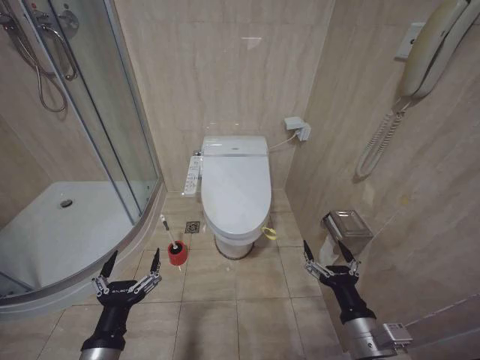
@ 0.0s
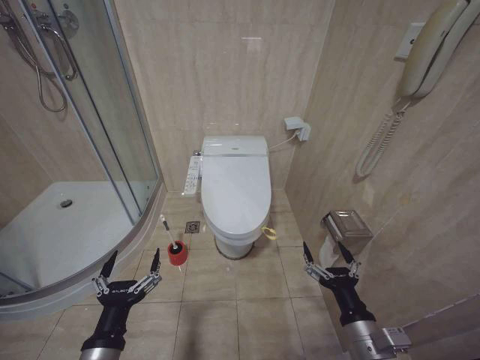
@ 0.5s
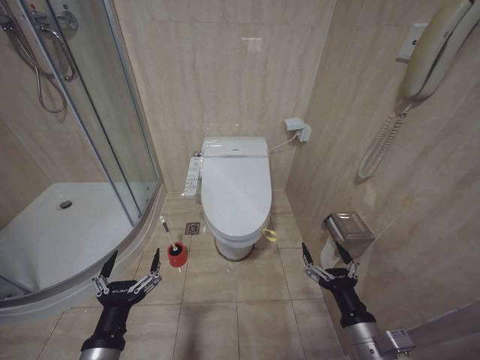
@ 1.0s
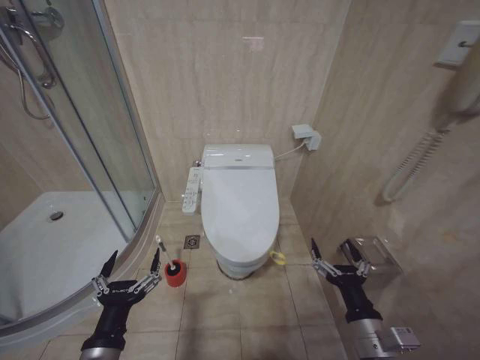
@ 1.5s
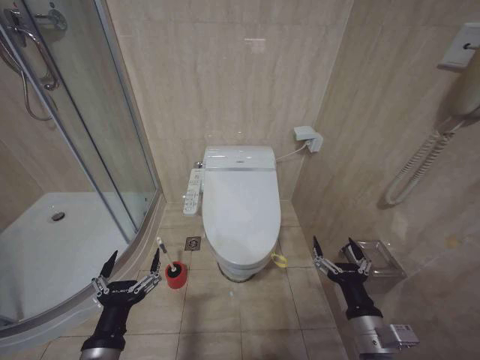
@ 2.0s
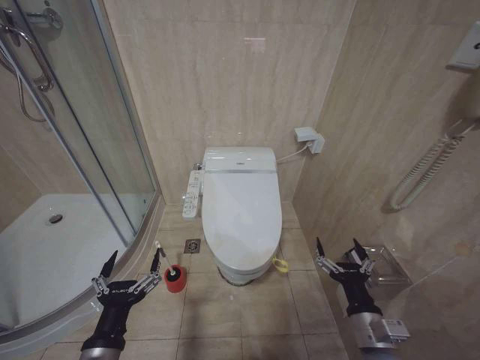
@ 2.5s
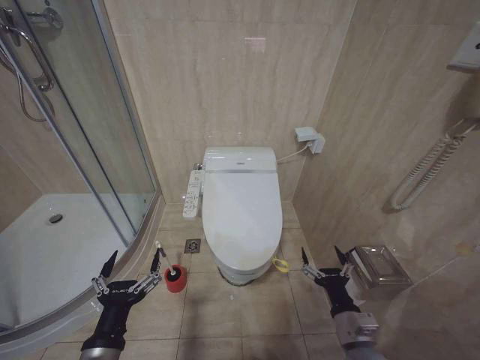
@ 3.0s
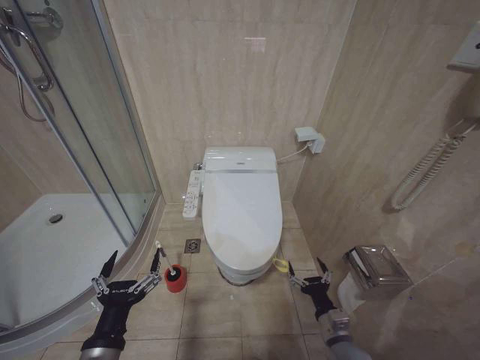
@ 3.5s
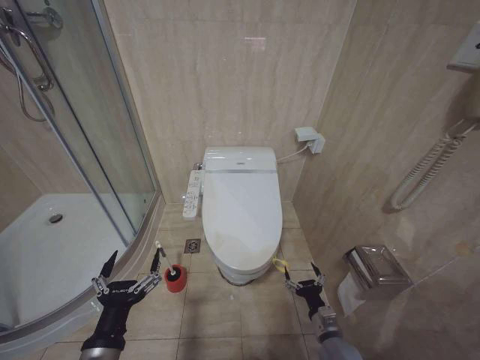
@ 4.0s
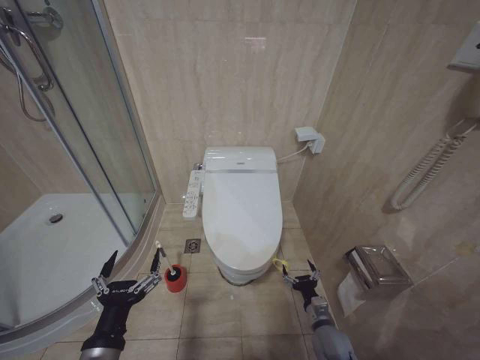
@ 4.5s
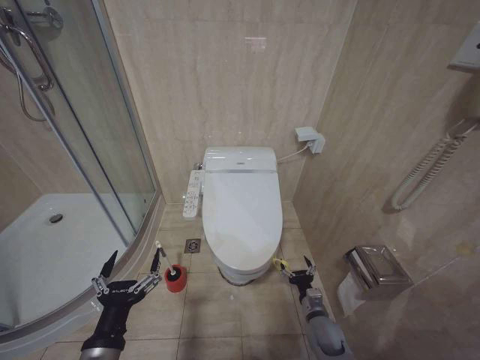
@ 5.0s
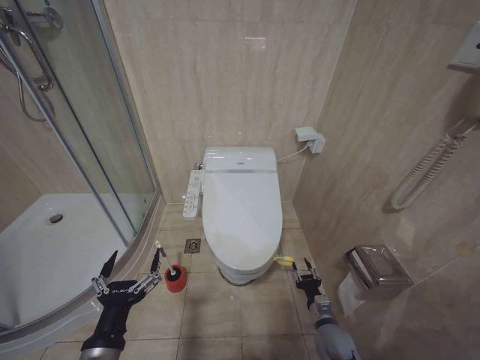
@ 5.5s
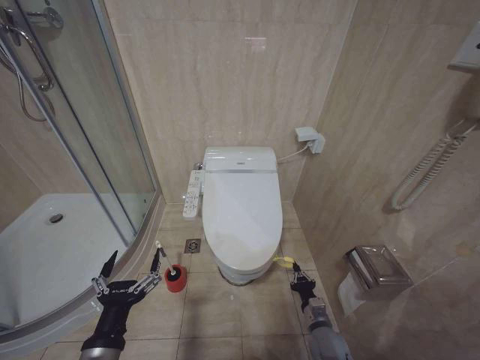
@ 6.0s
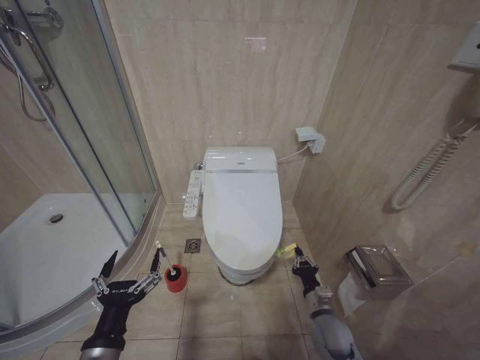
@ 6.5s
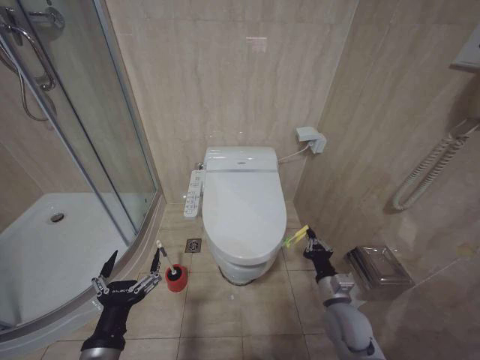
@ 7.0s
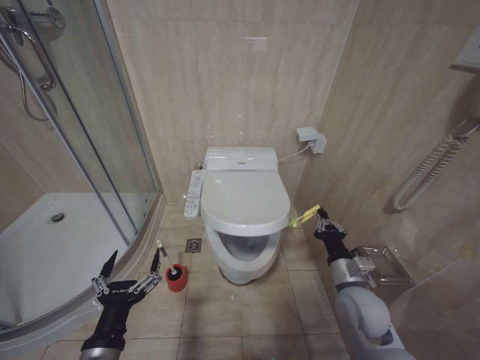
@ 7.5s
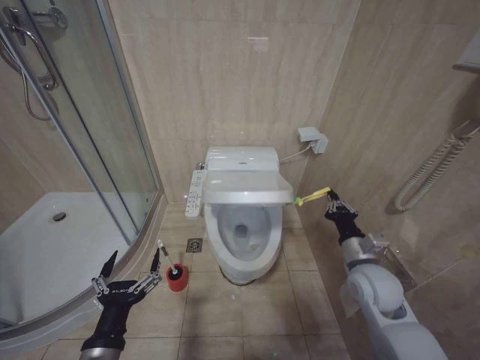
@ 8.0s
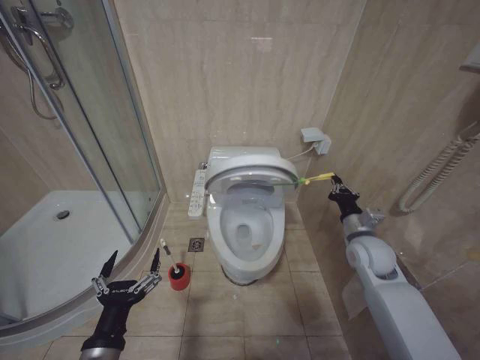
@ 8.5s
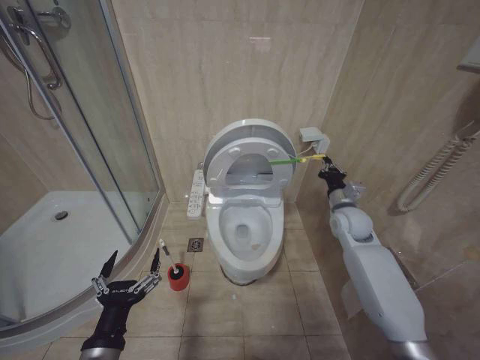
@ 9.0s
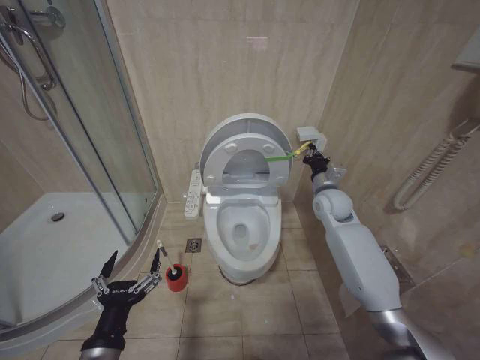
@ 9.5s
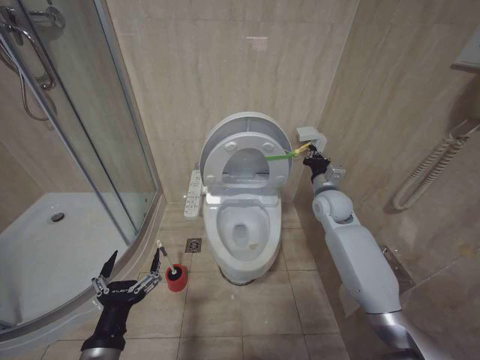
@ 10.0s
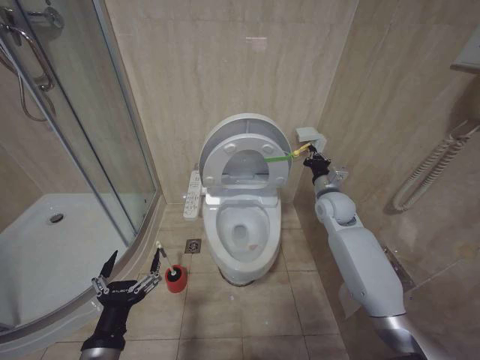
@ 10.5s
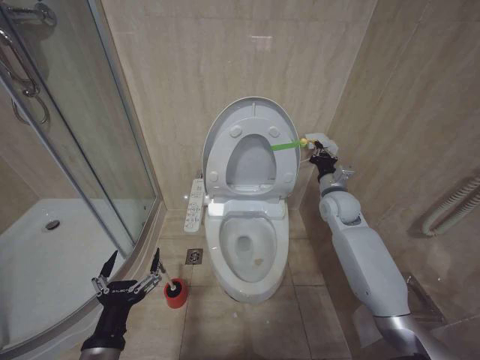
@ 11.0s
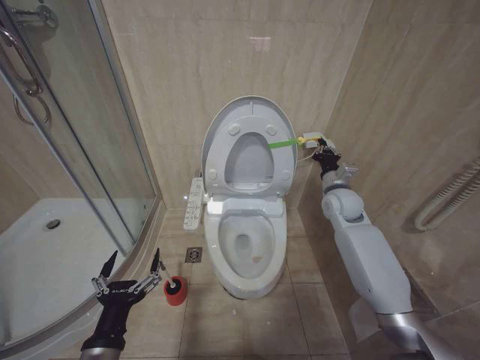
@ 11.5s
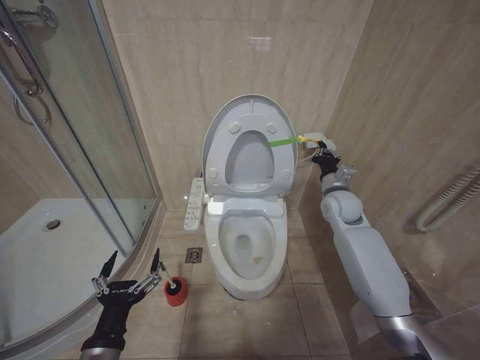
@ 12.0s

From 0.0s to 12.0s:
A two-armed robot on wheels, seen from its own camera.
Task of the whole recording: Open the toilet lid, clean the toilet bowl with a toilet brush, close the toilet lid, and flush.
From 2.0s to 4.0s: The right gripper is displaced downward and forward by about 20 cm.
From 4.0s to 6.0s: The right gripper closes.
From 6.0s to 8.0s: The right gripper is displaced upward by about 25 cm.
From 8.0s to 10.0s: The right gripper is displaced forward and upward by some 20 cm.
From 10.0s to 12.0s: The grippers make only small movements.

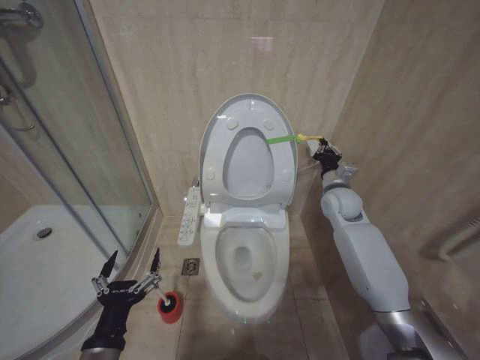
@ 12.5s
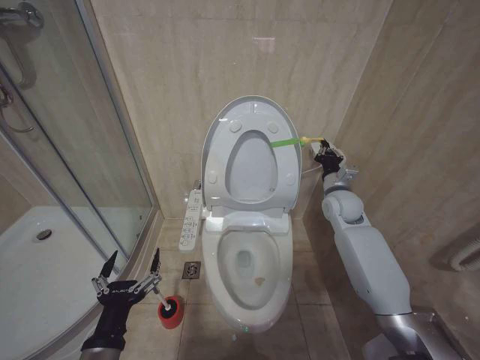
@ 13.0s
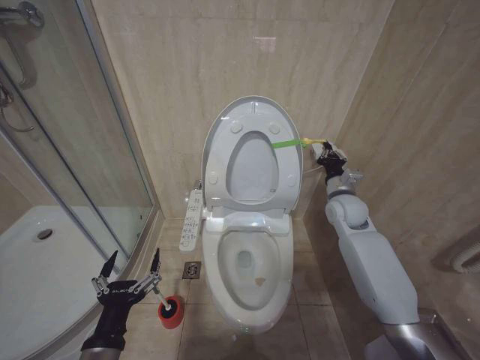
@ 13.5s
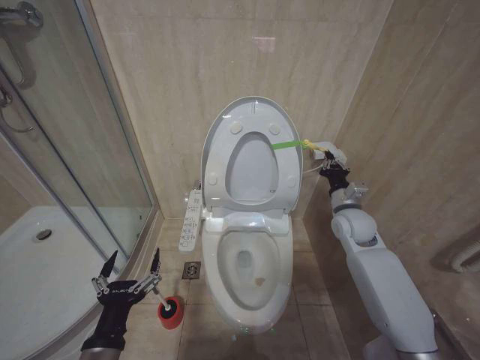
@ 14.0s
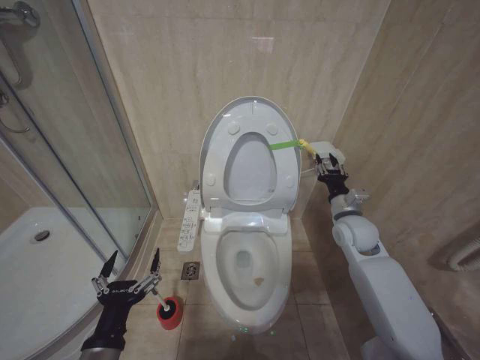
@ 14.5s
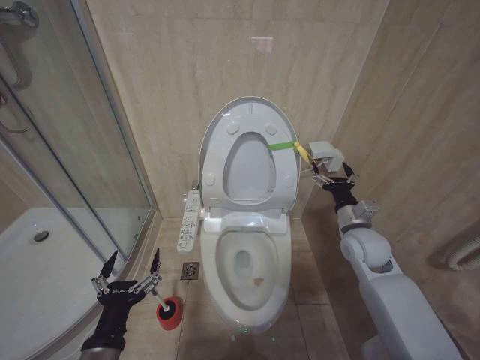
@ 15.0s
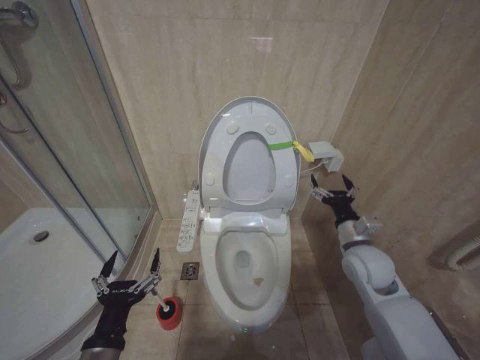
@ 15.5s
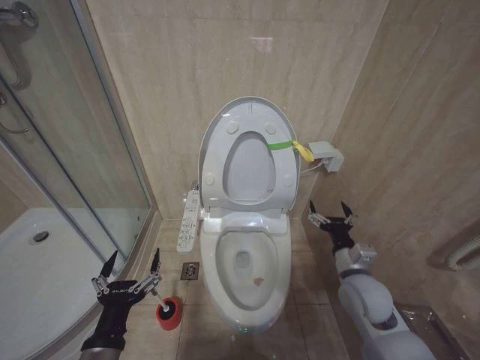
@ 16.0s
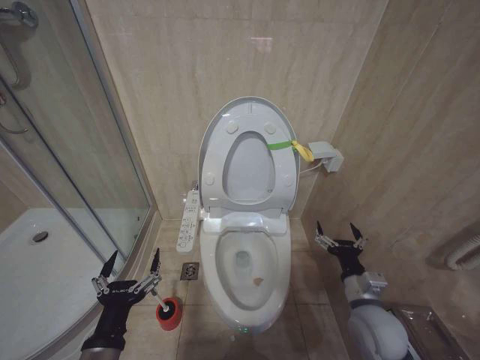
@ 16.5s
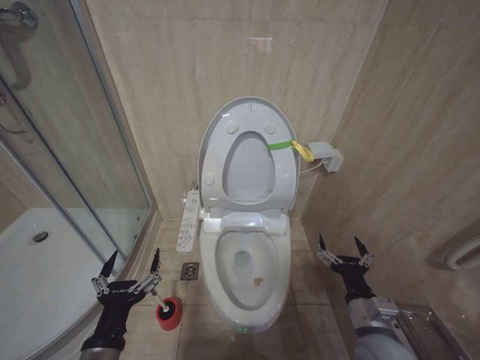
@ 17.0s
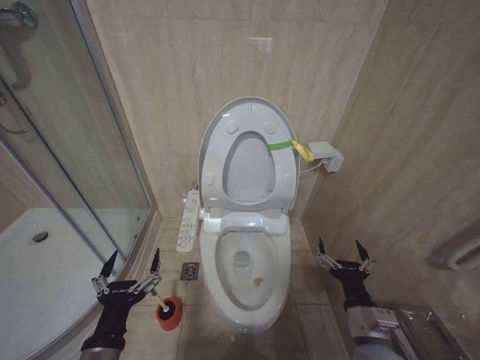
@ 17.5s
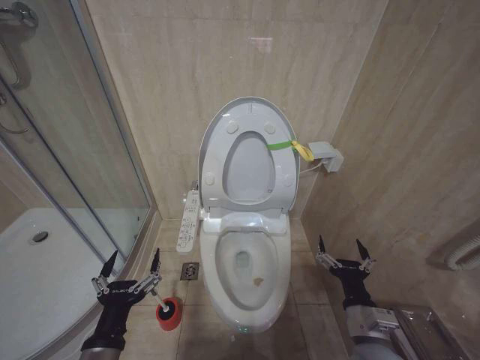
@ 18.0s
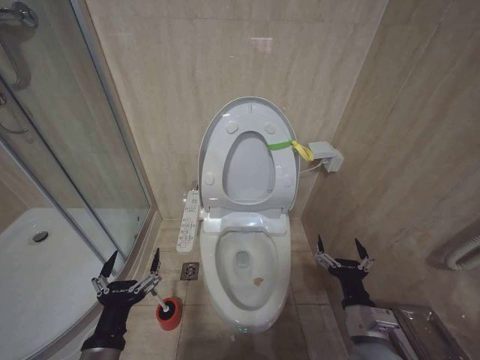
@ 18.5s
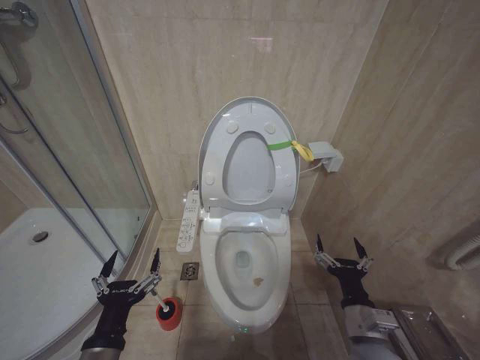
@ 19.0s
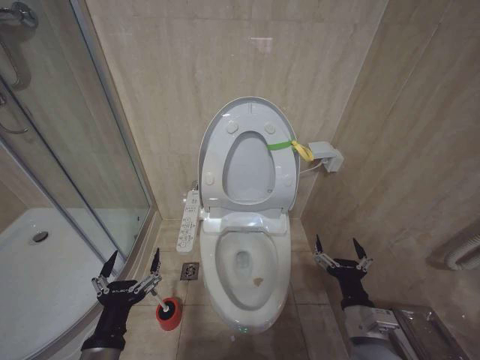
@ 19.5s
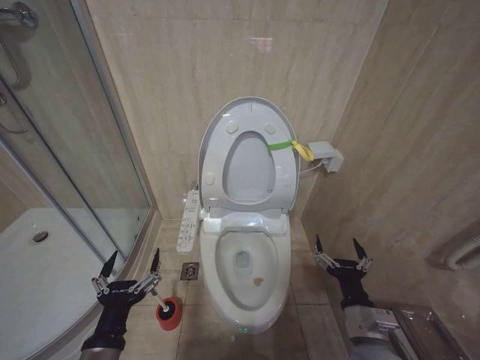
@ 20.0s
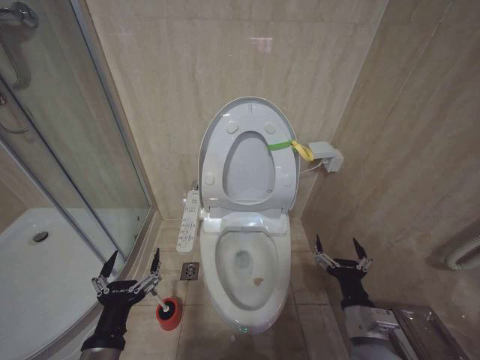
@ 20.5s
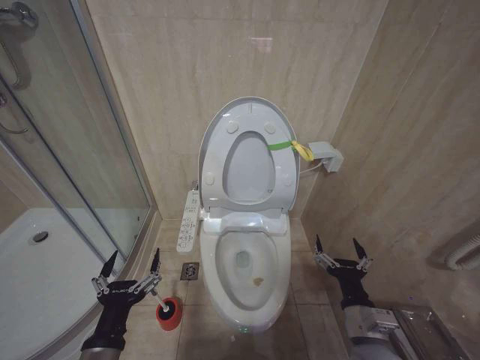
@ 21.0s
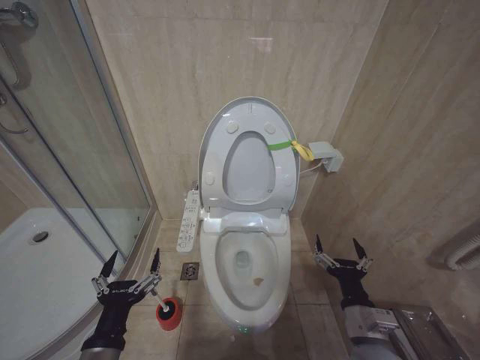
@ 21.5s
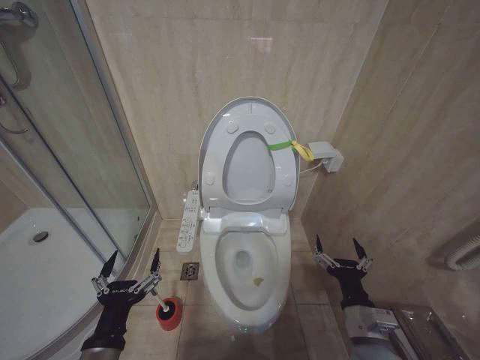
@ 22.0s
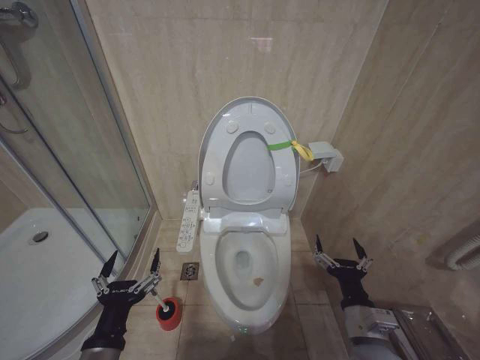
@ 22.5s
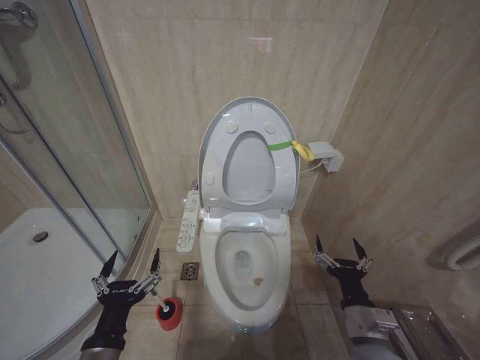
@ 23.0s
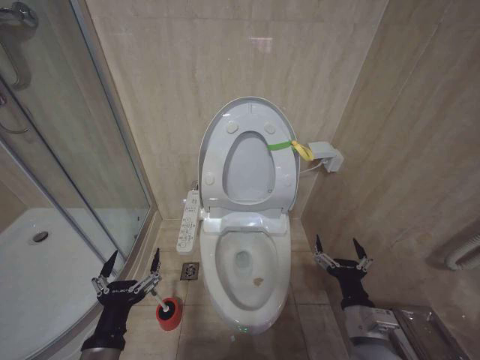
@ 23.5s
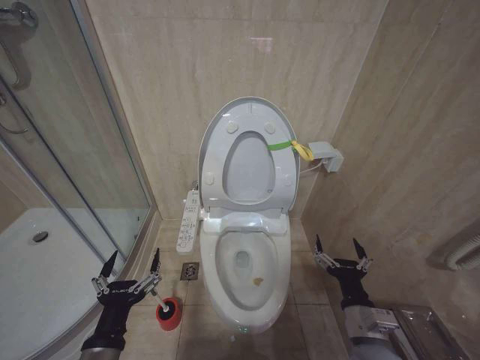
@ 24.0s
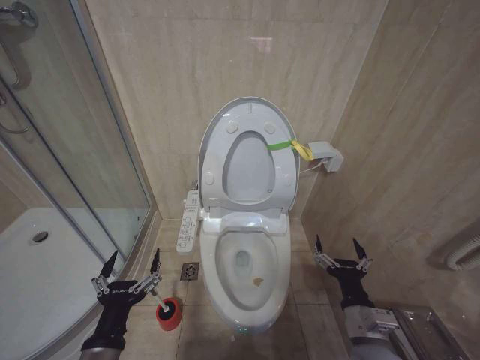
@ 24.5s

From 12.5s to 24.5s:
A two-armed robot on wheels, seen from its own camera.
Task of the whole recording: Open the toilet lid, clean the toilet bowl with a toilet brush, close the toilet lid, and flush.
From 12.5s to 14.5s: The right gripper is displaced backward by approximately 5 cm, and opens up.
From 14.5s to 16.5s: The right gripper shifts about 20 cm backward and downward, and opens up.
From 16.5s to 18.5s: The right gripper is displaced backward by approximately 5 cm.
From 18.5s to 24.5s: The two grippers keep their place.

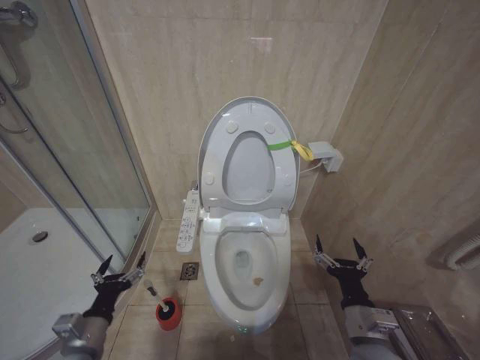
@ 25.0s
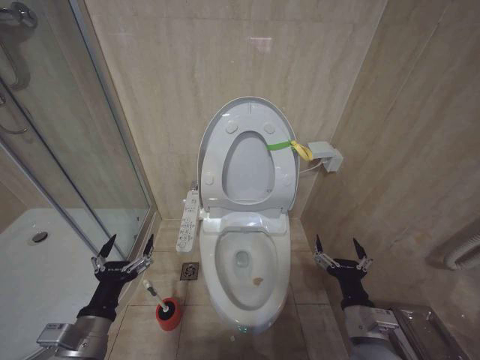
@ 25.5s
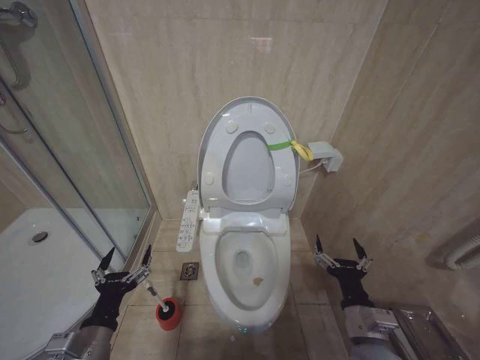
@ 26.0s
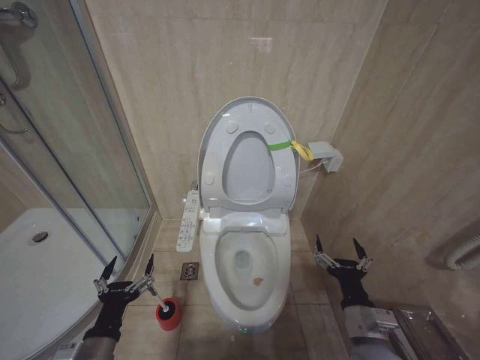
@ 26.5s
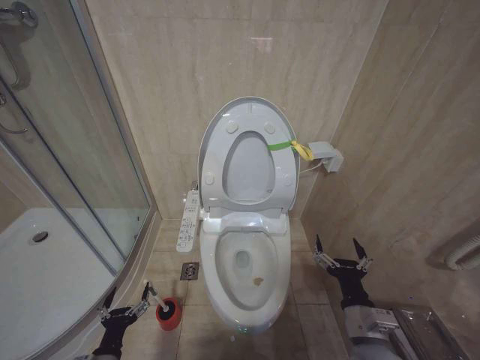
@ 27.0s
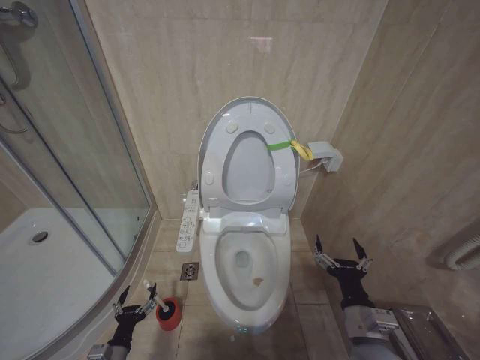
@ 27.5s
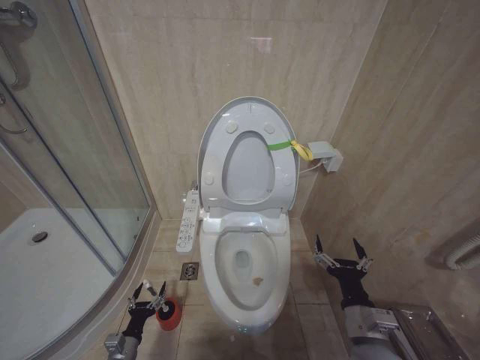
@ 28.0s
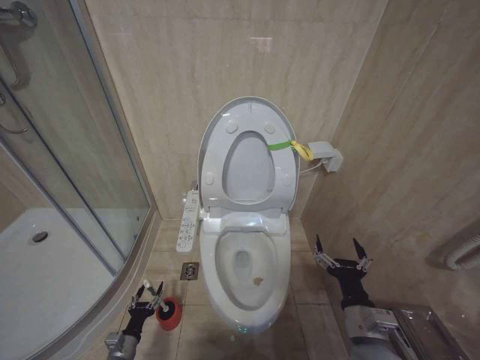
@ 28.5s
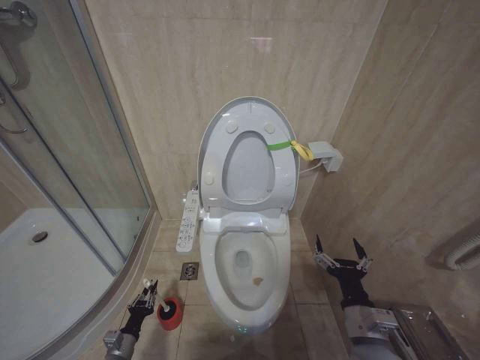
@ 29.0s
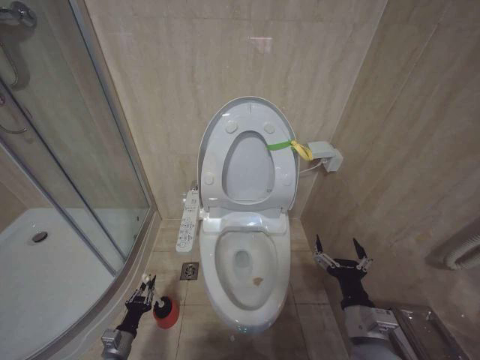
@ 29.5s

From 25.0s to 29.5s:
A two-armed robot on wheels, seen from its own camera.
Task of the whole recording: Open the toilet lid, clean the toilet bowl with a toilet brush, close the toilet lid, and flush.
From 25.0s to 27.0s: The left gripper travels downward by some 10 cm.
From 27.0s to 29.5s: The left gripper goes roughly 15 cm downward and forward, and closes.
